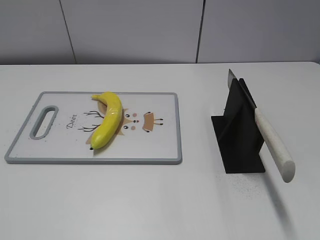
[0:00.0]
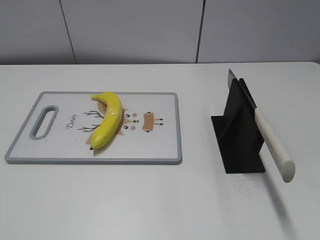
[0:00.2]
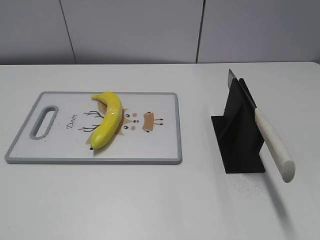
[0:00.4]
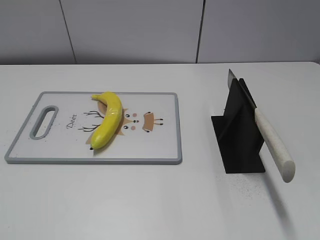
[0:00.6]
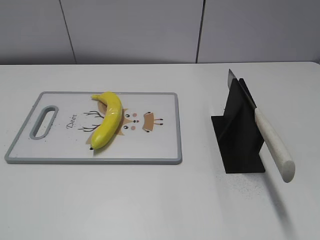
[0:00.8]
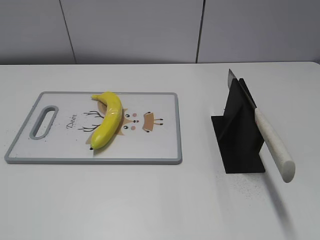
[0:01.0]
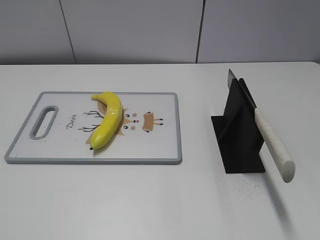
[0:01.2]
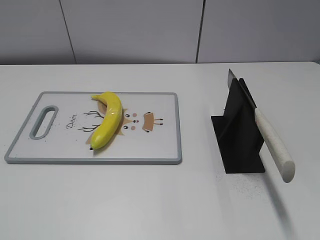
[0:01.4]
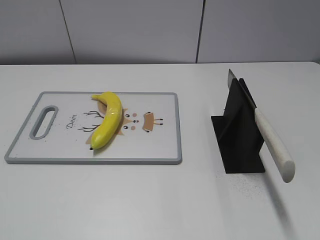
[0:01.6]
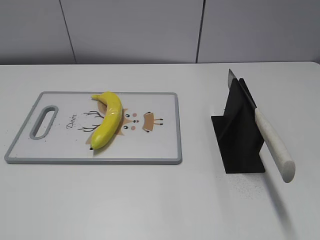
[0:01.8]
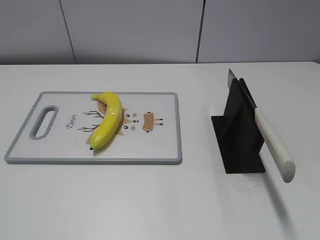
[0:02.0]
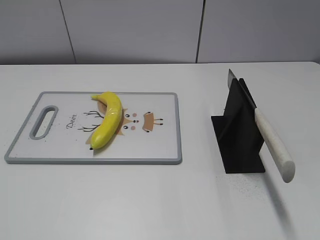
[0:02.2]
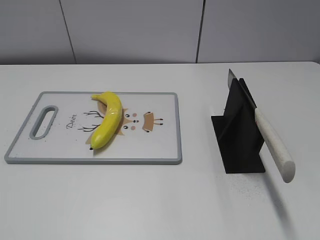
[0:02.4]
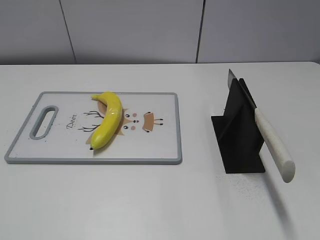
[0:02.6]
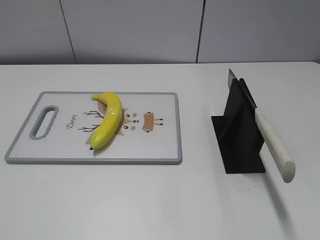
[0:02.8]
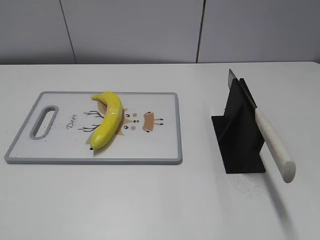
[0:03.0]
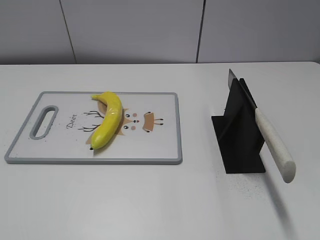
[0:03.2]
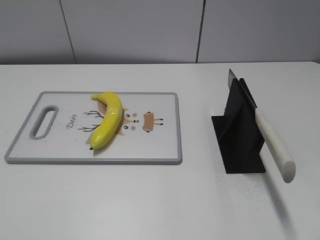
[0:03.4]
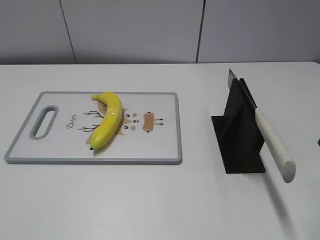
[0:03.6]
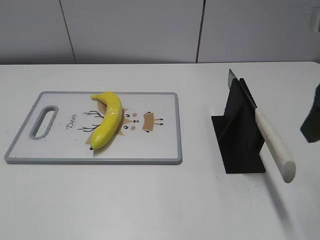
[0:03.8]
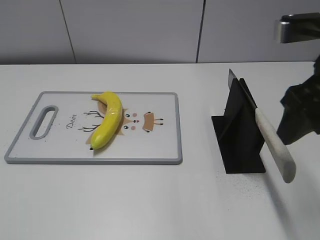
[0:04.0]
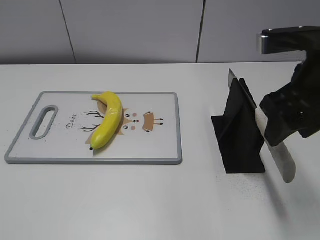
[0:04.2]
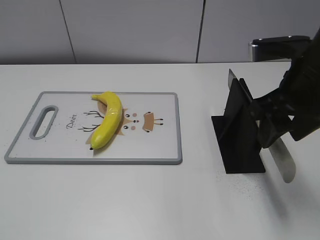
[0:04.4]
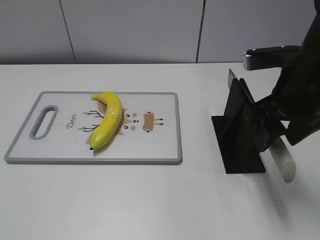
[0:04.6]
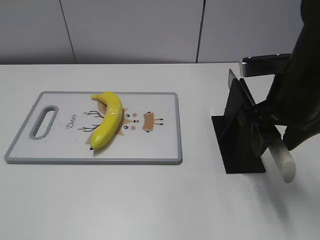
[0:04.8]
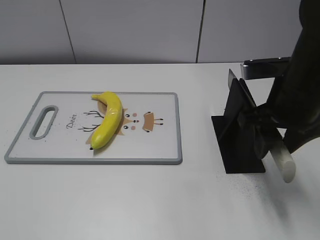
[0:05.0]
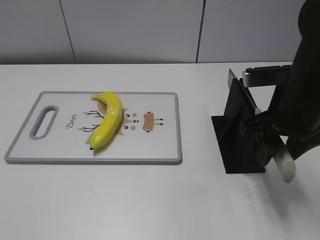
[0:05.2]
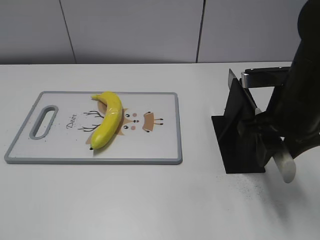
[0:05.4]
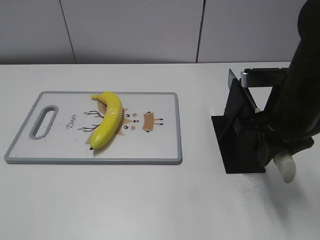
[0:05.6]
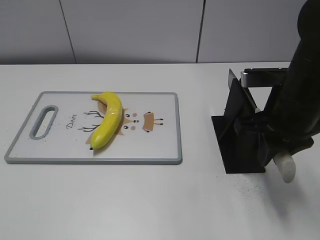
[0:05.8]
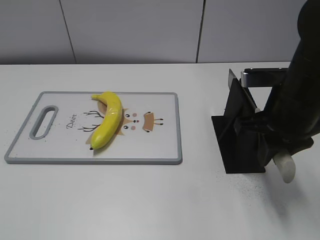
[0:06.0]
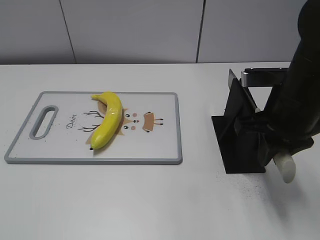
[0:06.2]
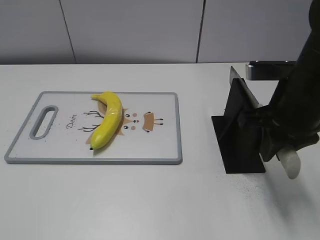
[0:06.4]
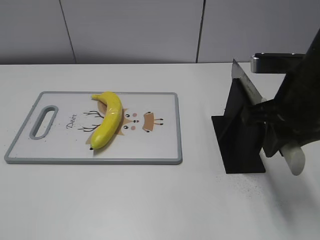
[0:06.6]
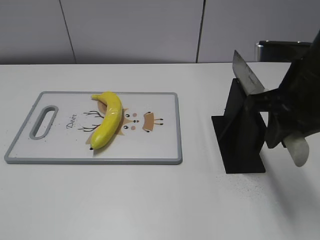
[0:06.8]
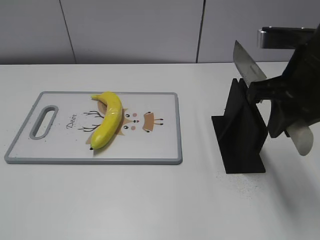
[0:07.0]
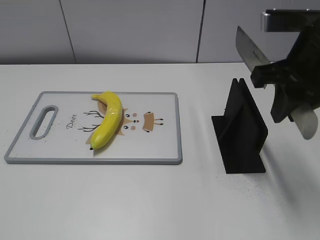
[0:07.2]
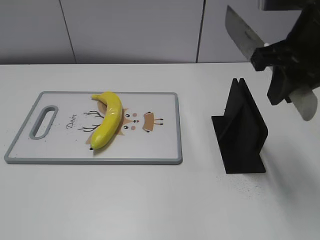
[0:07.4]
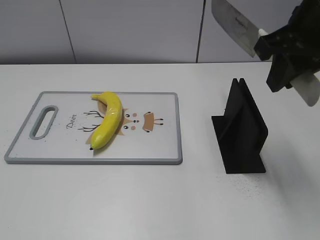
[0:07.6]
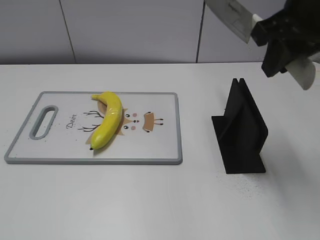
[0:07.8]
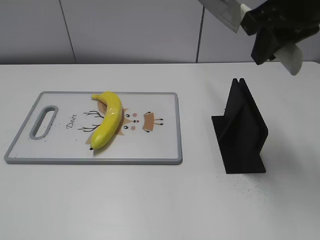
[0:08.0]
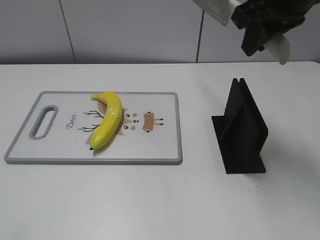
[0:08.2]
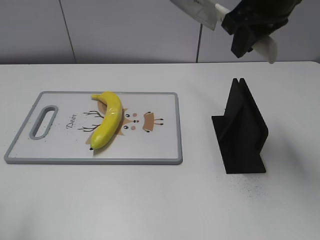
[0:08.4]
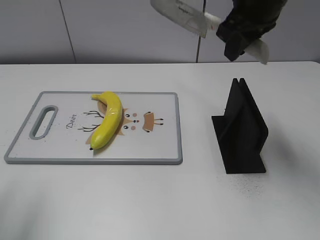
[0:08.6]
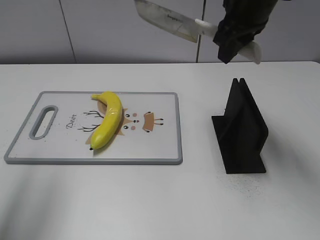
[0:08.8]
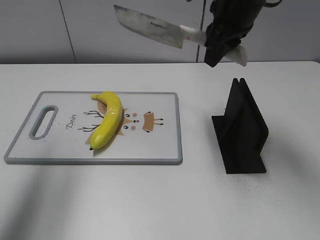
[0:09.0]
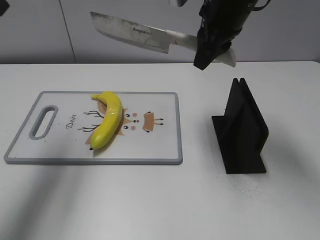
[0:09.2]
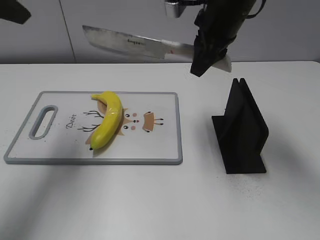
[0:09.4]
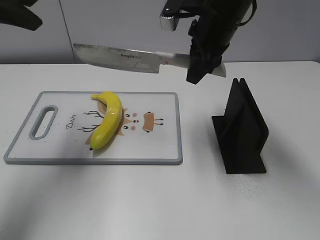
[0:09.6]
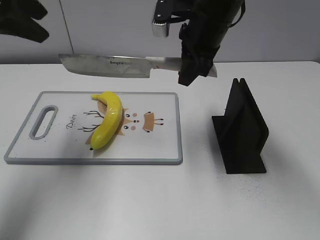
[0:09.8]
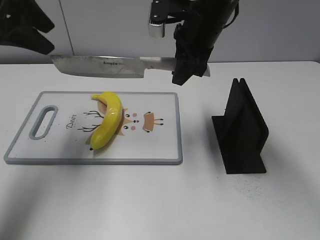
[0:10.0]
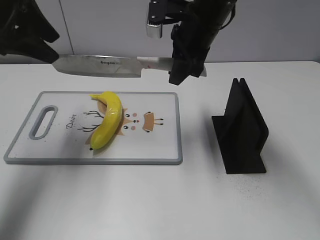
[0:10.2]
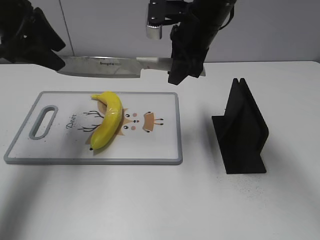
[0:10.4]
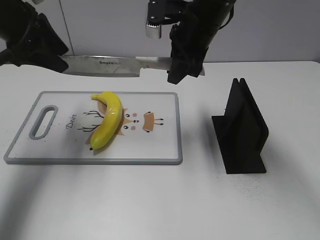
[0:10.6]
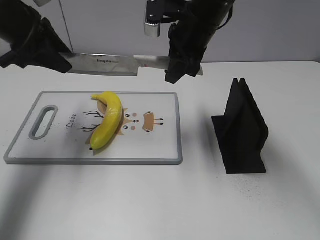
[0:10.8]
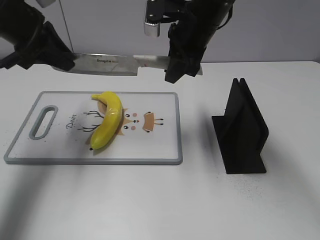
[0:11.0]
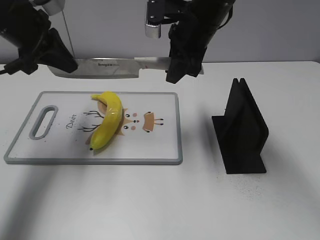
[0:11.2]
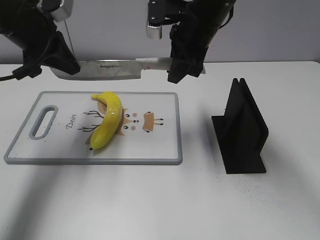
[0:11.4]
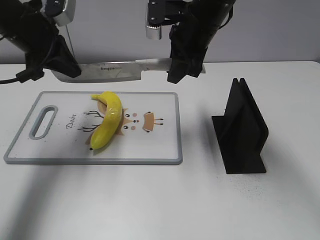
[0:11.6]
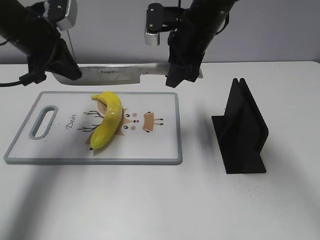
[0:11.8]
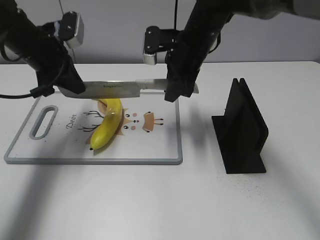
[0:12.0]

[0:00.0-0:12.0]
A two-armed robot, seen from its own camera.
Task of the whole recording: cut plastic banana.
Step, 0:00.0 to 0:07.2: Grab the knife handle with your right hand.
0:03.0 to 0:04.4: The right gripper moves forward, to the left and downward, some 20 cm.
0:04.4 to 0:06.0: The right gripper closes its fingers.
0:06.0 to 0:07.6: The right gripper shifts about 10 cm upward.
0:07.6 to 0:09.0: The left gripper shifts roughly 30 cm forward and upward. Meanwhile the right gripper is displaced forward and to the left by approximately 15 cm.
0:09.0 to 0:10.4: The left gripper shifts approximately 15 cm forward and downward; the right gripper moves approximately 5 cm.
0:10.4 to 0:12.0: Both grippers move downward, some 5 cm. The left gripper closes its fingers.

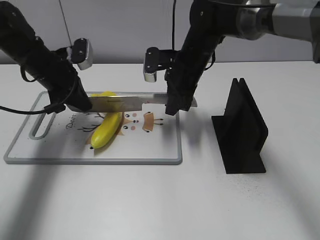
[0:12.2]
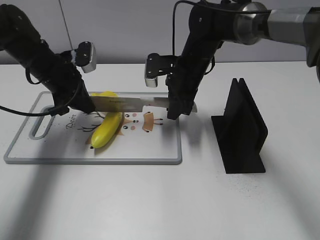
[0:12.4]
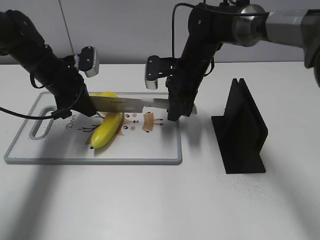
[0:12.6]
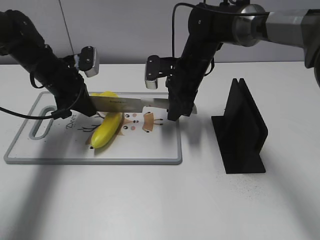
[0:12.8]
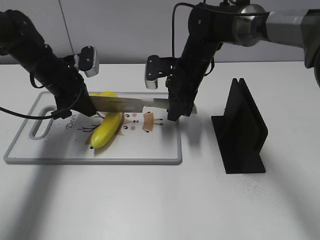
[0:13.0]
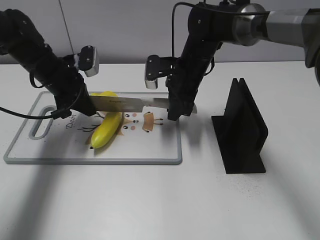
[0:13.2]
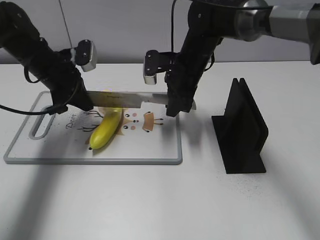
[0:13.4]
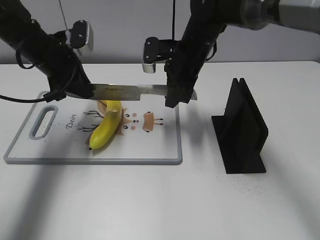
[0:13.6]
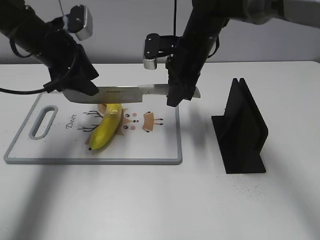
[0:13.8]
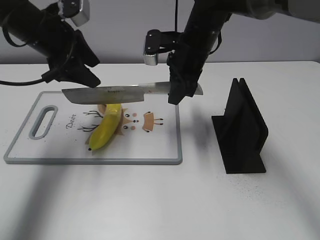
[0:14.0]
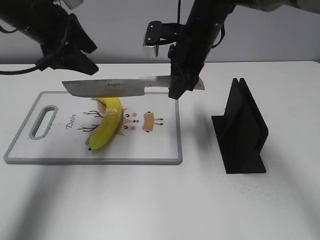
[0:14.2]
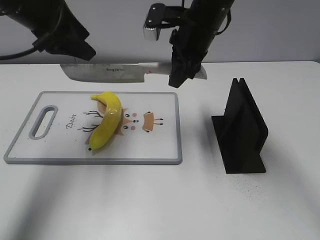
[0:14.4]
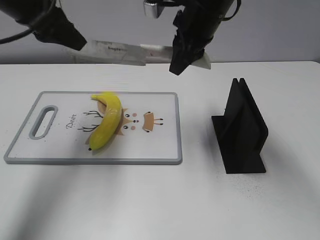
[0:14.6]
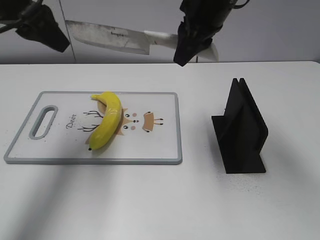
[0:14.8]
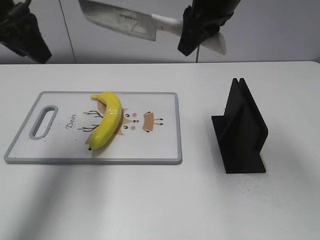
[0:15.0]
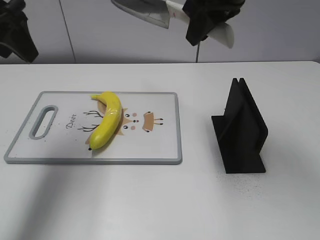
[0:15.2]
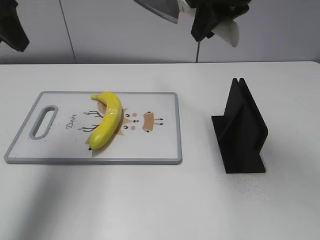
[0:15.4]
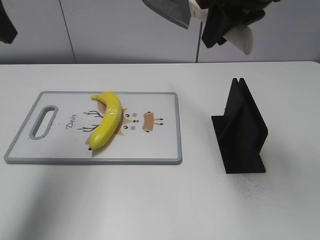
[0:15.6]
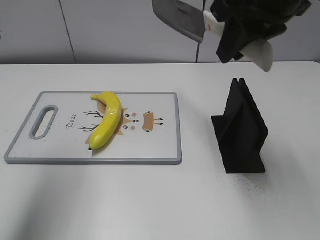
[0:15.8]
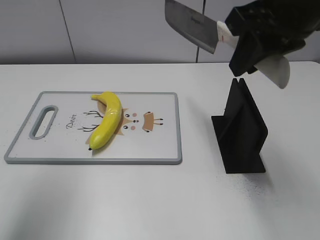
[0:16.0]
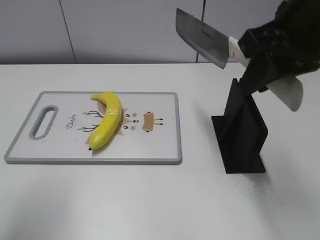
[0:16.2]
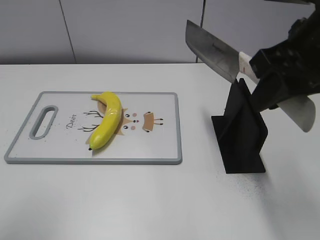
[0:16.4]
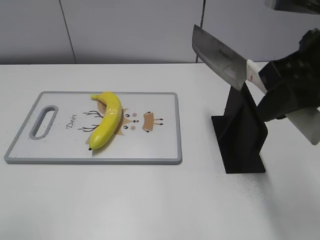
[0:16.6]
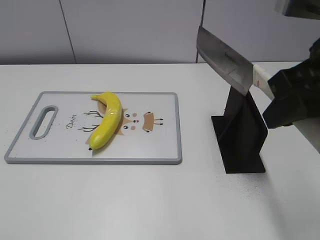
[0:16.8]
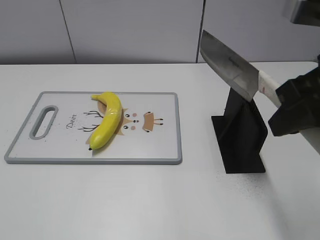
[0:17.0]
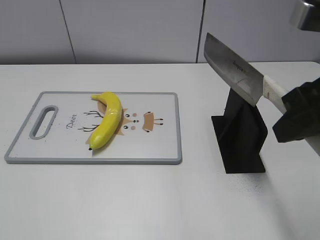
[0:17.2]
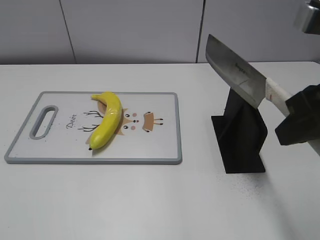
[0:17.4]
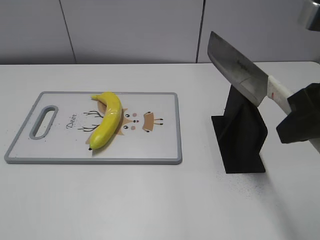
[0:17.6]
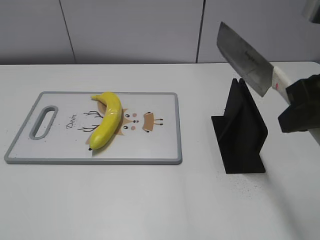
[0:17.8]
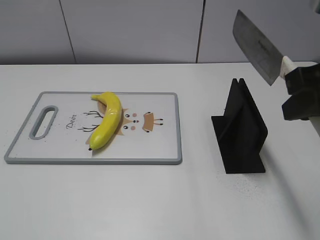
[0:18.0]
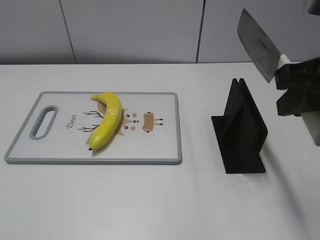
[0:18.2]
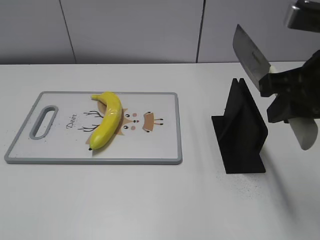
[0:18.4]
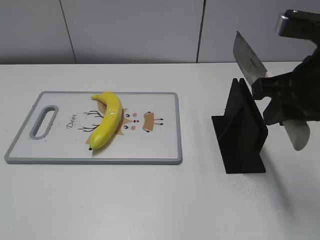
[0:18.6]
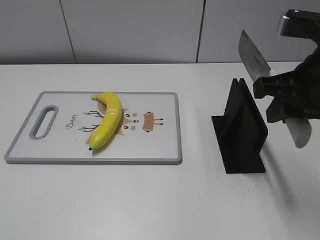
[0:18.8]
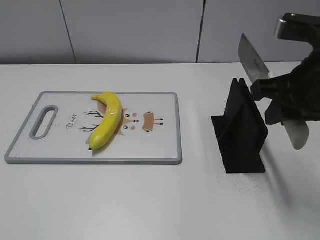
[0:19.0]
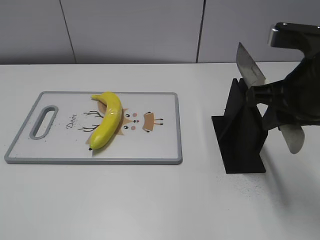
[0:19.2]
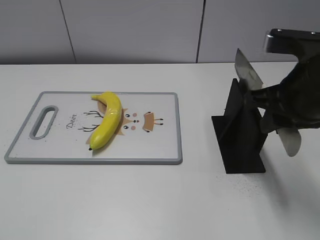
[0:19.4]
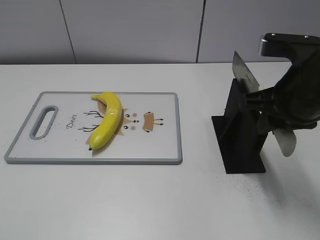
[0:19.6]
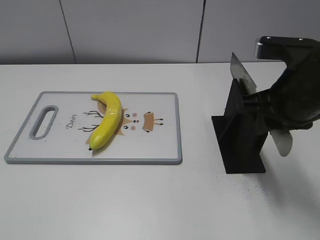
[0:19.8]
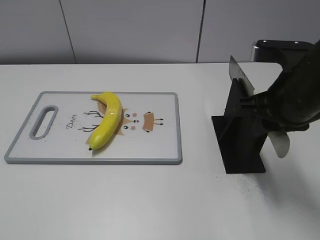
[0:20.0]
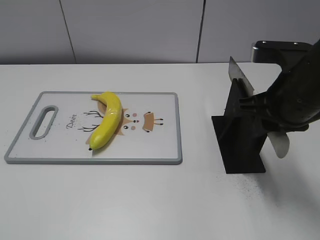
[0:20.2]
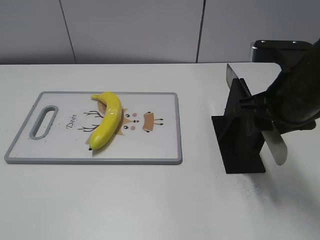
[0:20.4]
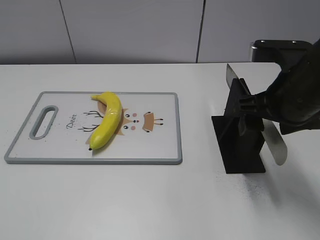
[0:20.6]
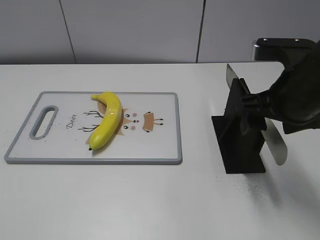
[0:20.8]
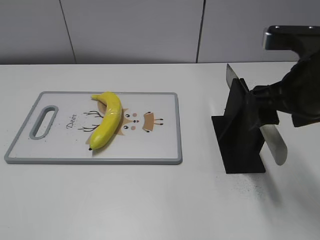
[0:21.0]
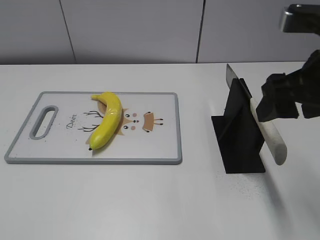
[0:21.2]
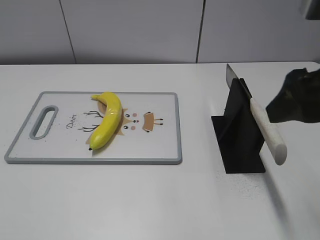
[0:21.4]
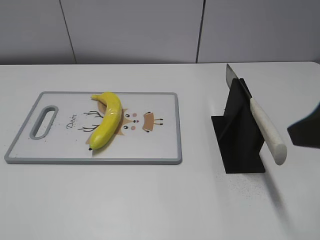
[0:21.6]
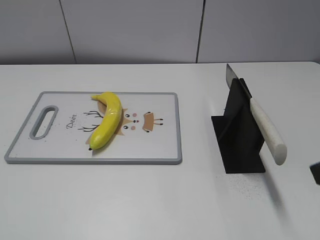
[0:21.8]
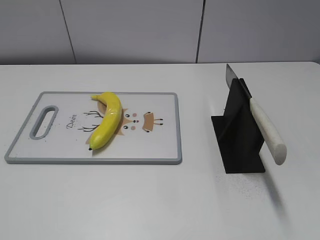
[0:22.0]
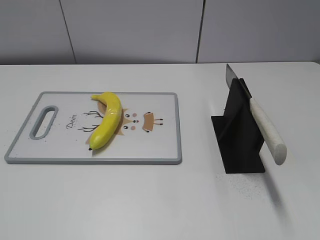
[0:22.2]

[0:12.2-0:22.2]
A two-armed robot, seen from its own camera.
Task of the whole recording: cut plastic banana.
Step, 0:14.0 to 0:15.2: Cut the banana with your right hand.
Step, 0:15.4 to 0:16.8: Lift the knife with your right hand.
0:12.2 to 0:13.6: The grippers make only small movements.
0:13.6 to 0:15.0: The right gripper travels upward by approximately 15 cm. Meanwhile the left gripper is displaced upward and backward by some 15 cm, and opens.
0:15.0 to 0:16.4: The left gripper shifts some 20 cm backward. Meanwhile the right gripper is displaced backward and to the right by about 15 cm.
0:16.4 to 0:18.0: The left gripper travels backward and downward by roughly 15 cm.
0:18.0 to 0:19.4: The right gripper is displaced downward and forward by approximately 10 cm.
0:19.4 to 0:20.8: The right gripper opens its fingers.
0:20.8 to 0:22.2: The right gripper travels backward and to the right by some 20 cm.
